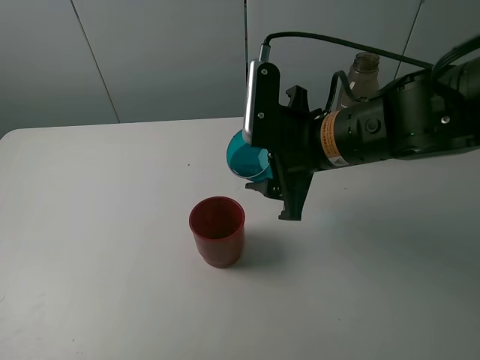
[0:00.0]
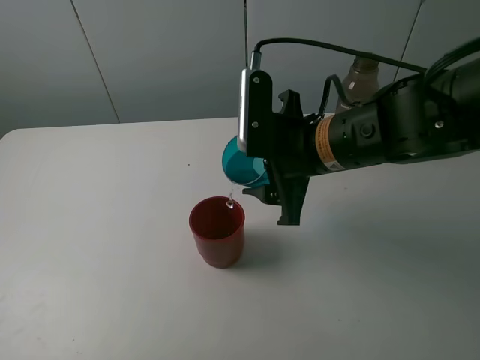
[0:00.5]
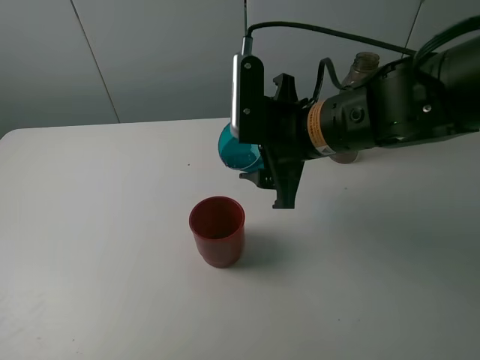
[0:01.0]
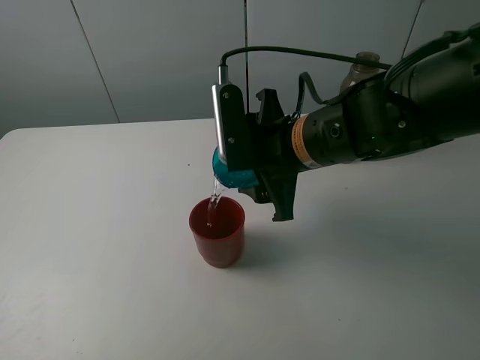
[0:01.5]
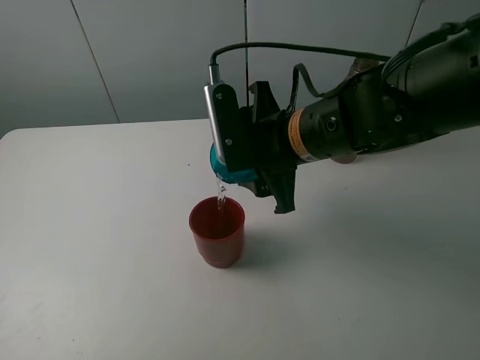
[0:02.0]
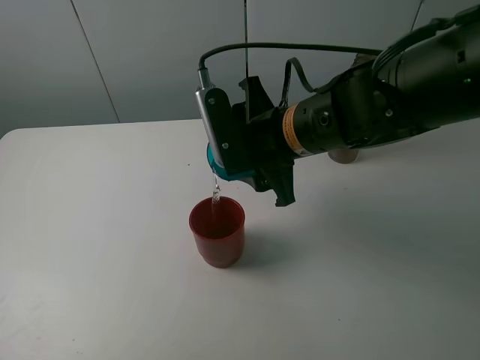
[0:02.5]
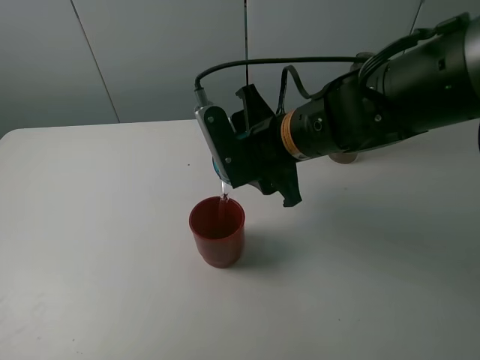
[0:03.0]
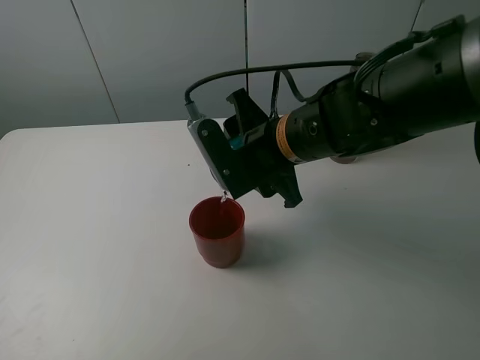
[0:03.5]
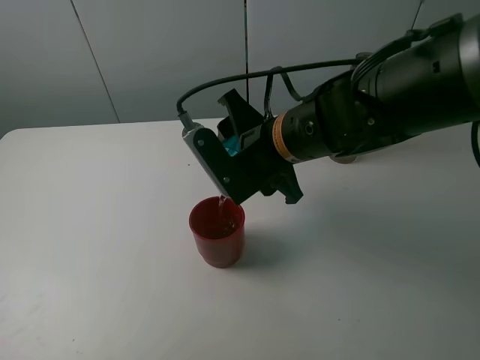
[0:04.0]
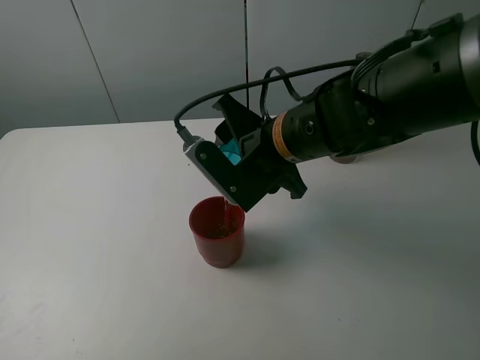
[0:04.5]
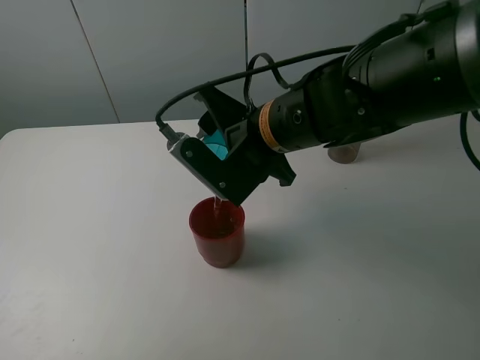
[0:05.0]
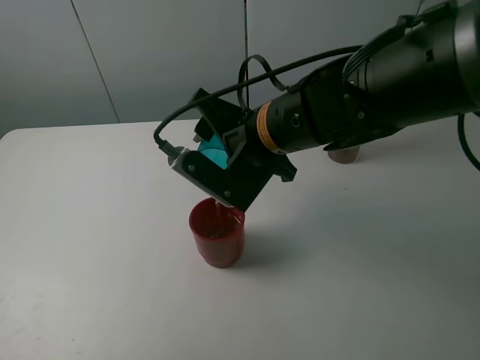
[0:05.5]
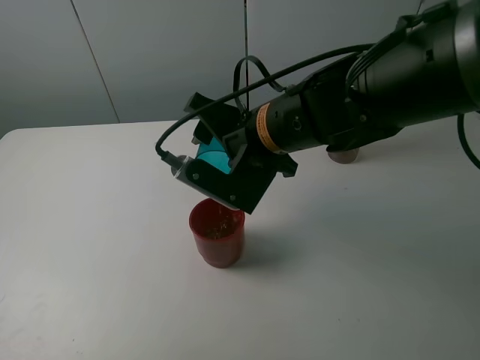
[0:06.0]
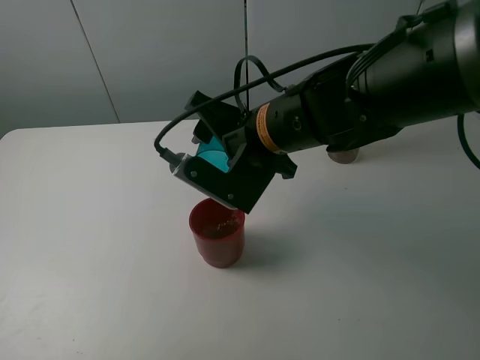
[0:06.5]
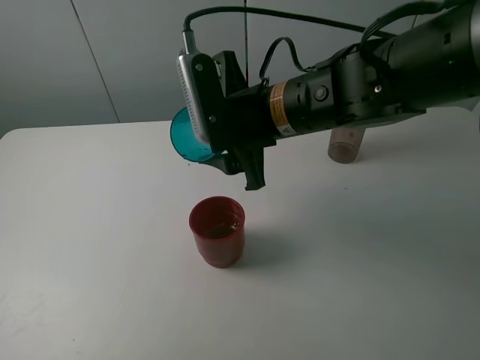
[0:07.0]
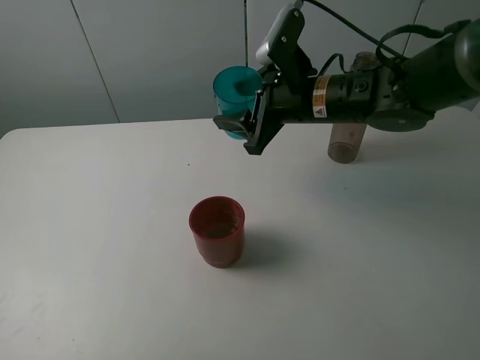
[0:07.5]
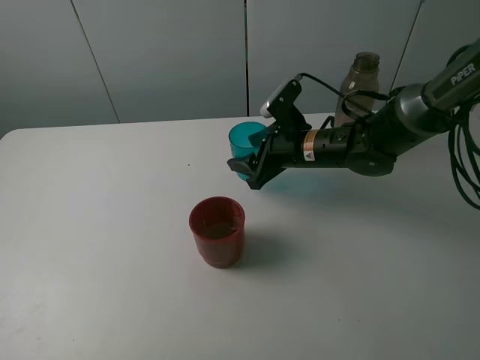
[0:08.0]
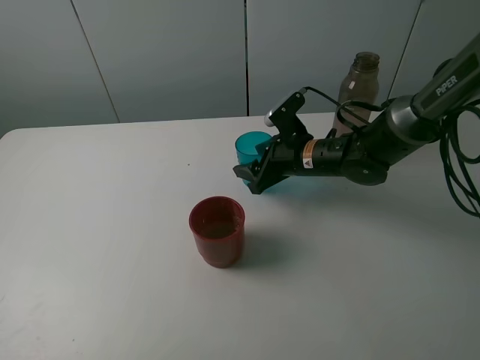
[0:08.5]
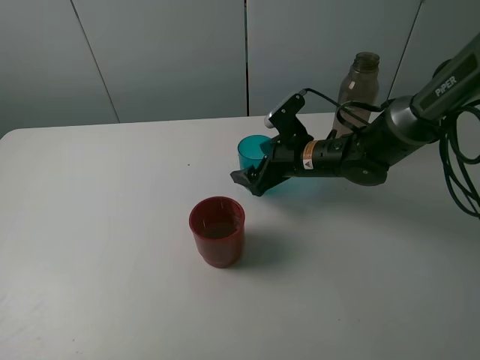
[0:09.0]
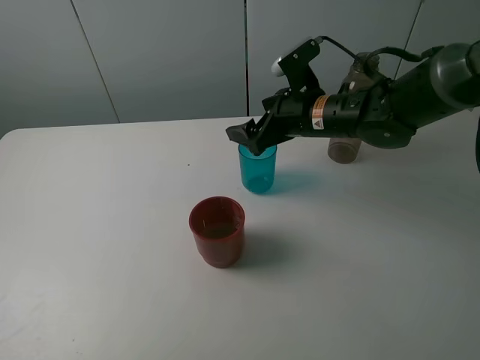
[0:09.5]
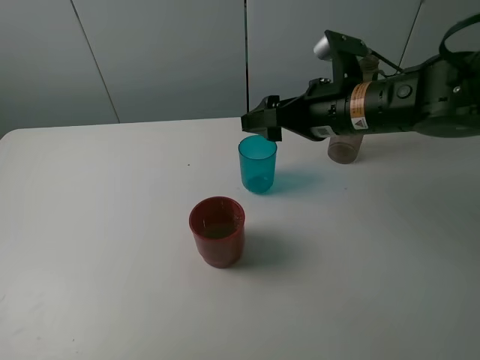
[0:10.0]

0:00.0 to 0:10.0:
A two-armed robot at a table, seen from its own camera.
Task of the whole recording: pick up the bottle and pour water into the cup, then pick up the cup containing water and pour it into another cup.
Step, 0:00.0 to 0:06.5: Pour water from blue cup to red cup with the right gripper.
Step, 0:07.0 to 0:09.0: Place the blue cup with the right gripper.
0:06.0 to 0:08.0: The right gripper heads downward, forward and to the right, covering approximately 15 cm.
0:08.0 to 0:10.0: The right gripper shifts roughly 10 cm upward and backward, and opens up.

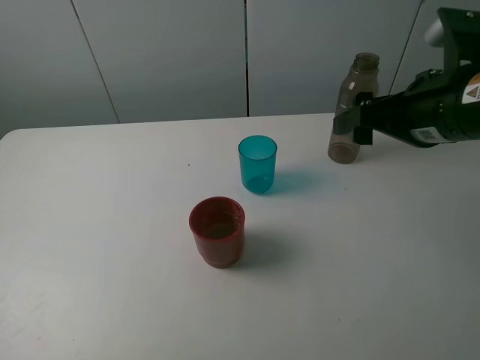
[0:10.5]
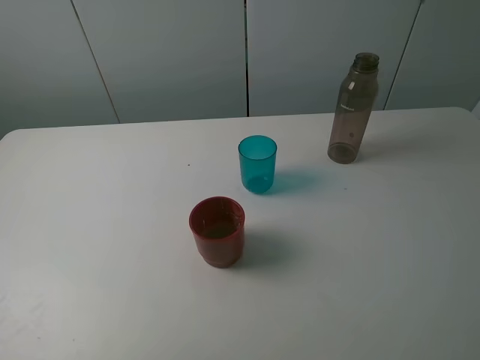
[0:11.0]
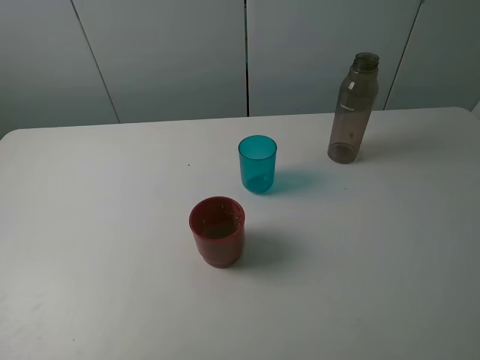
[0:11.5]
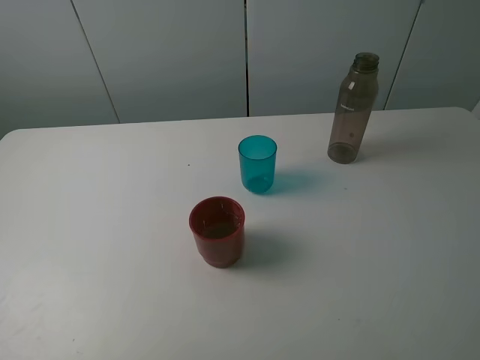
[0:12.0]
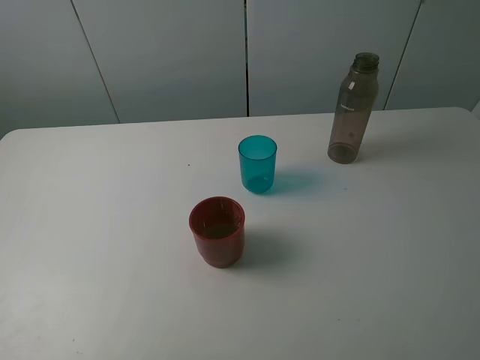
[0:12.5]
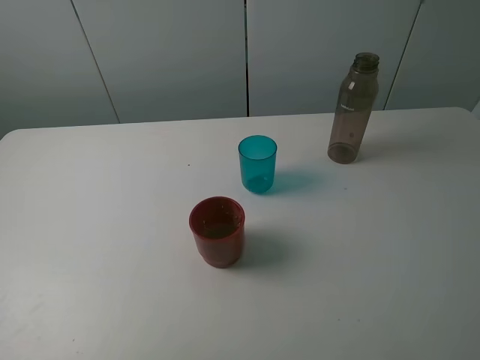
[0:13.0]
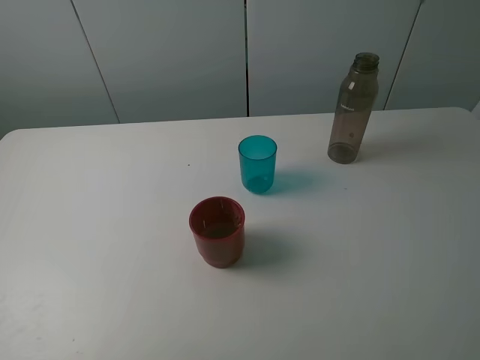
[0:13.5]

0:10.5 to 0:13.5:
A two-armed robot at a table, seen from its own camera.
Task of the whole recording: pick up the bottle and pour water into the cup, then pick up the cup containing water and pour it into another cup.
0:10.5 to 0:12.0: The right gripper goes approximately 20 cm backward.

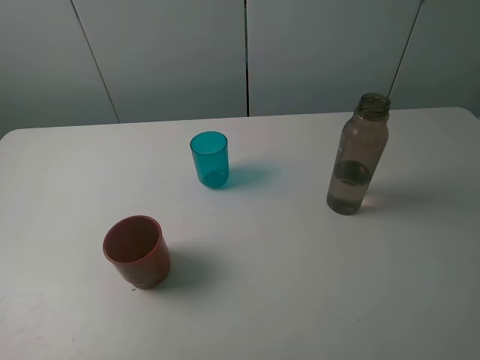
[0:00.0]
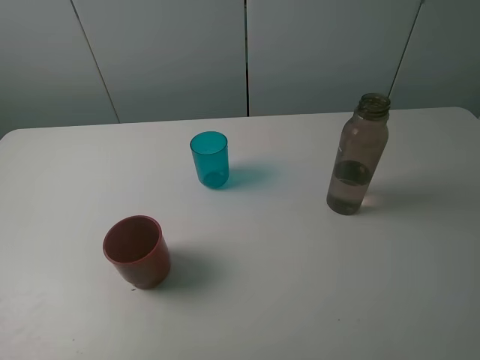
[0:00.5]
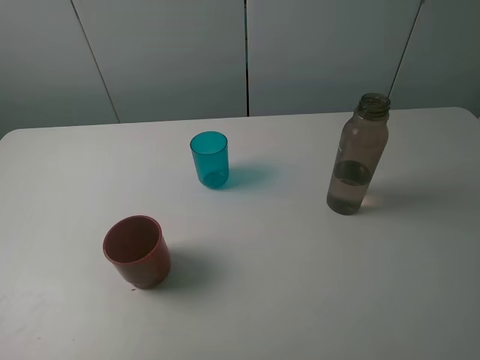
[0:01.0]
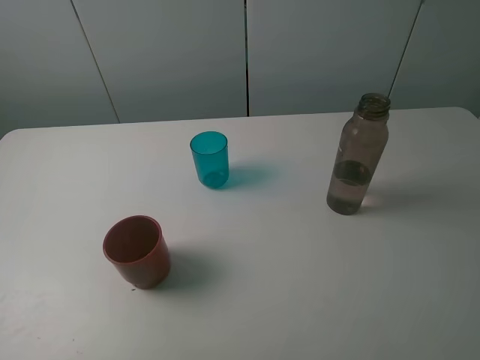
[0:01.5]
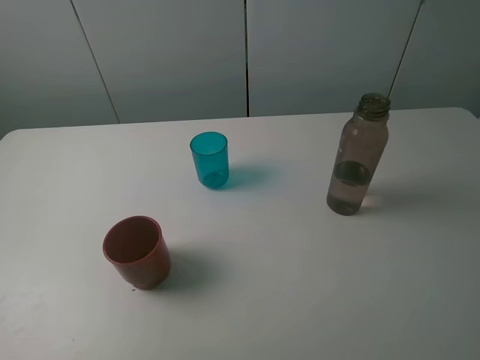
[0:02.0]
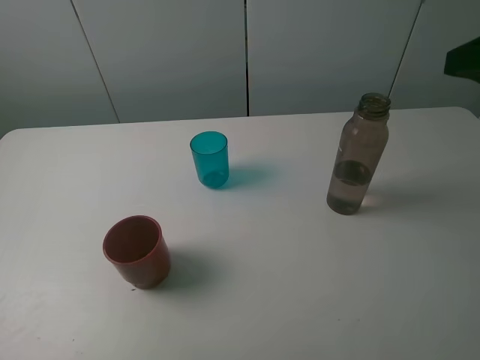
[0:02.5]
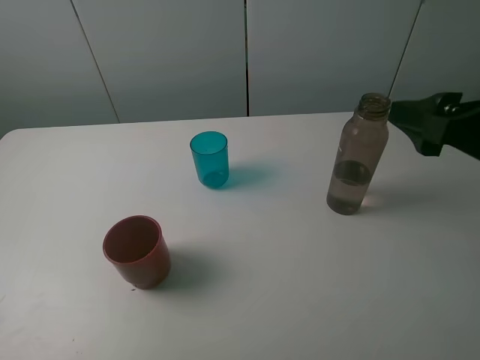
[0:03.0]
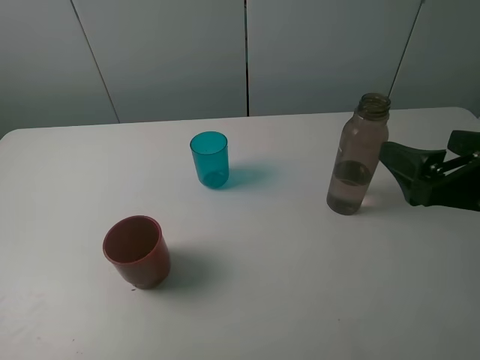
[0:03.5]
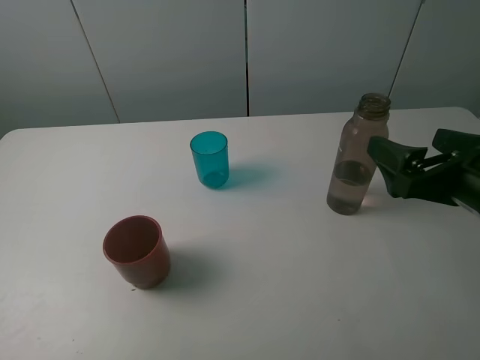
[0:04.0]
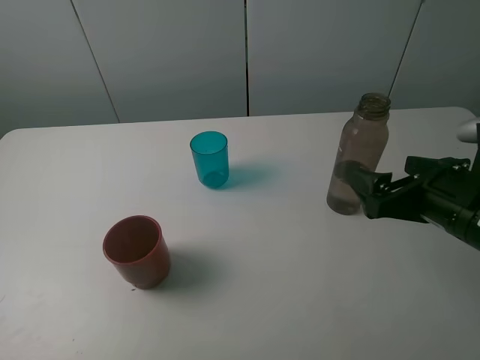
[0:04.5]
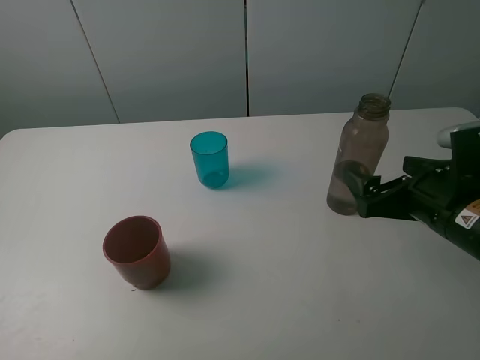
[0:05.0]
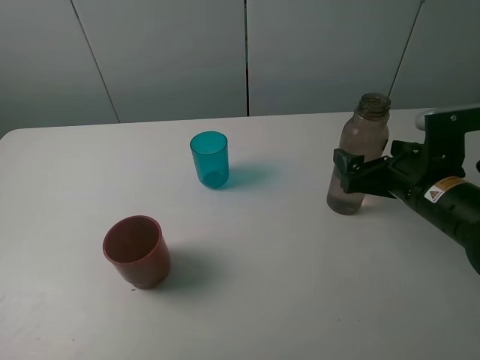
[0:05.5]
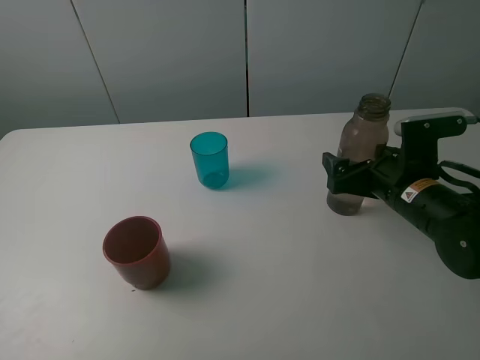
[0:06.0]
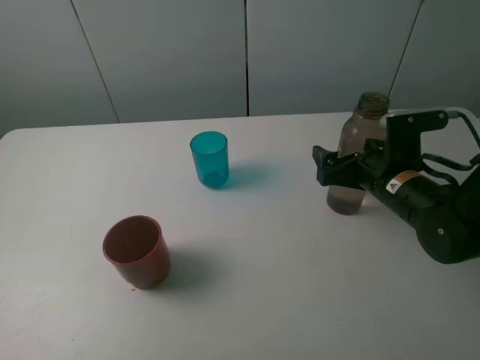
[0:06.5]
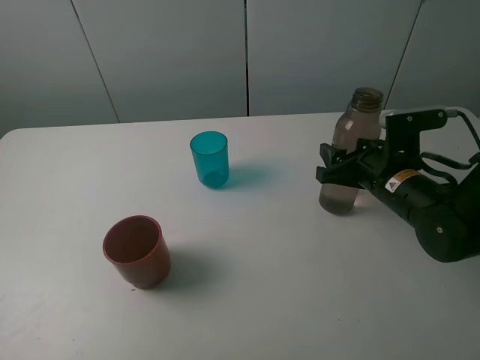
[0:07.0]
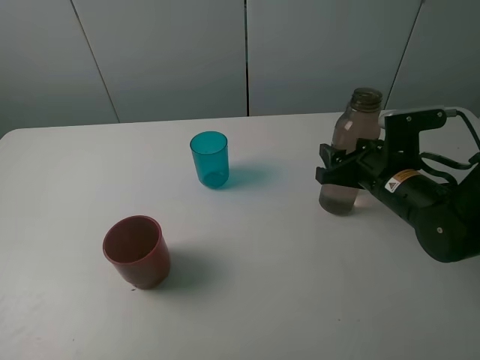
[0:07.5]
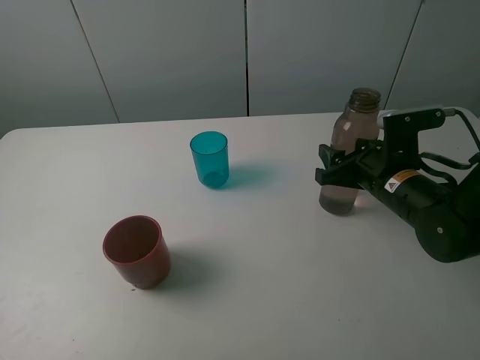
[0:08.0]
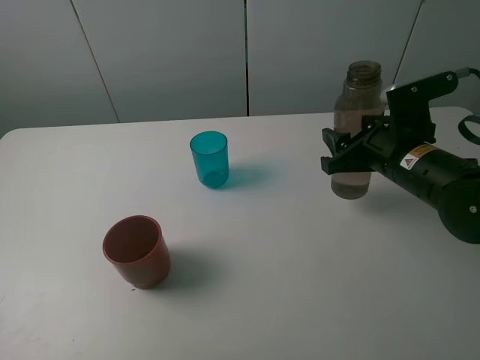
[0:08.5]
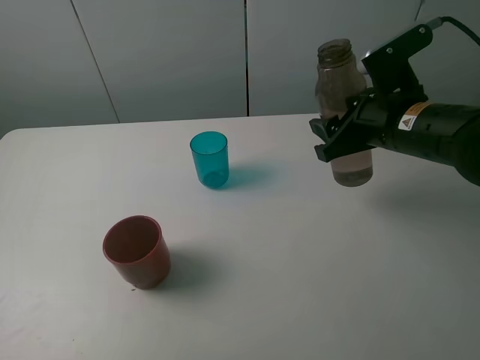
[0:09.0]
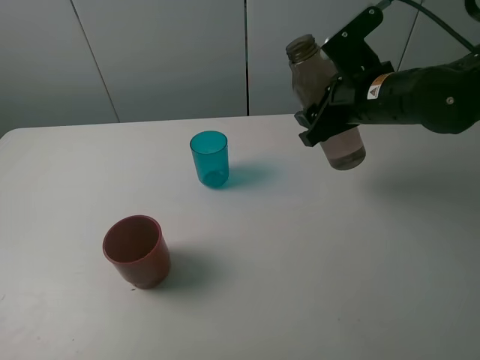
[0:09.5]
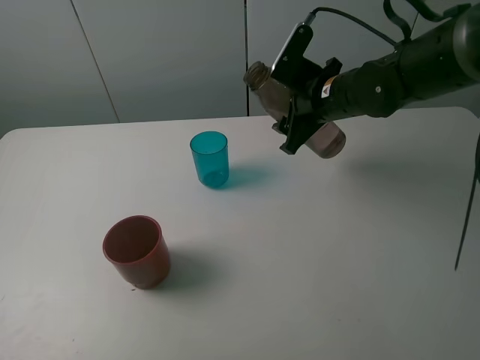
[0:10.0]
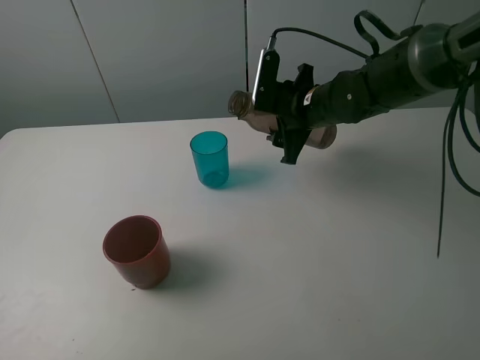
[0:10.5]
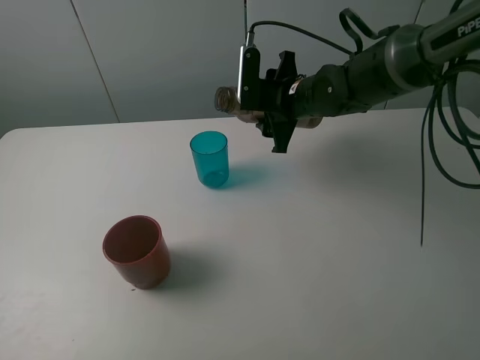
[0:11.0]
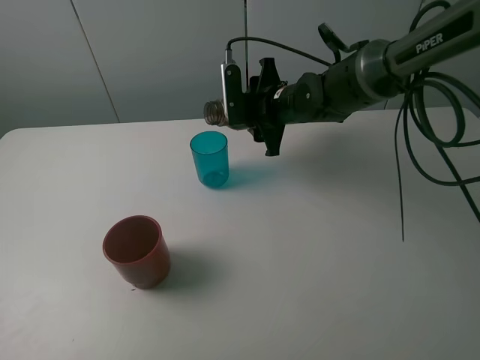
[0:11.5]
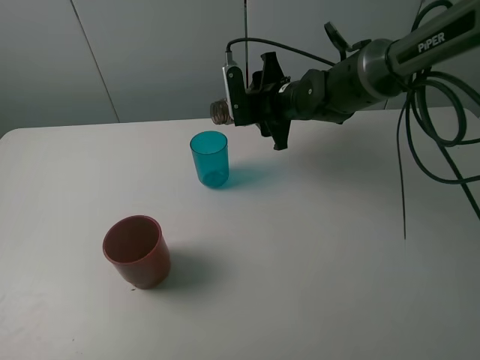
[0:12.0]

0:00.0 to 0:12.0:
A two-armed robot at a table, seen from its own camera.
Task of the whole recording: pick up the bottle and pour water into the cup, then pick up the cup containing water and pour it into another cup.
Step, 0:00.0 to 0:07.0: Grasp the brown bottle with the right gripper.
0:02.0 to 0:04.0: The right gripper goes approximately 15 cm downward and forward.
0:04.0 to 0:06.0: The right gripper heads forward and downward, covering roughly 10 cm.
0:06.0 to 0:08.0: The right gripper closes.
0:08.0 to 0:10.0: The right gripper shifts approximately 15 cm forward, to the left and upward.
0:10.0 to 0:12.0: The right gripper goes approximately 5 cm to the left.
